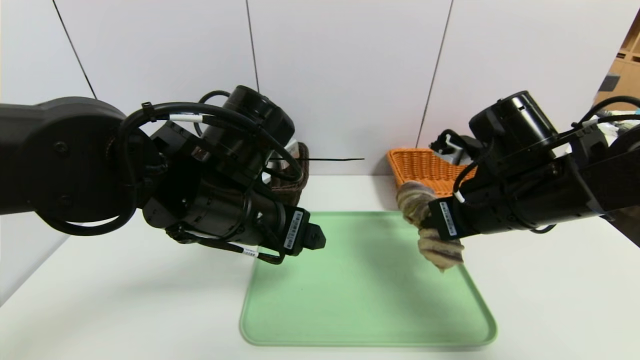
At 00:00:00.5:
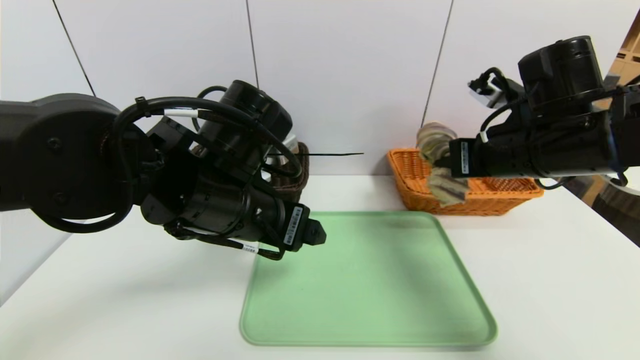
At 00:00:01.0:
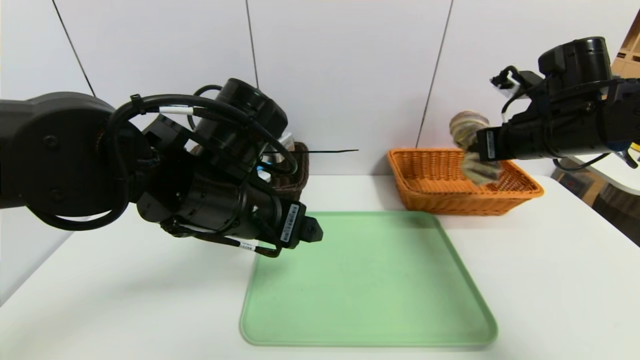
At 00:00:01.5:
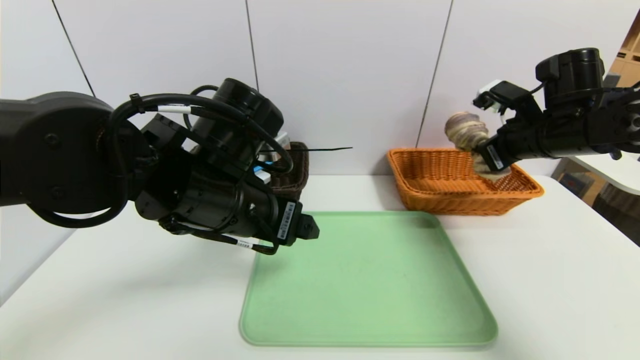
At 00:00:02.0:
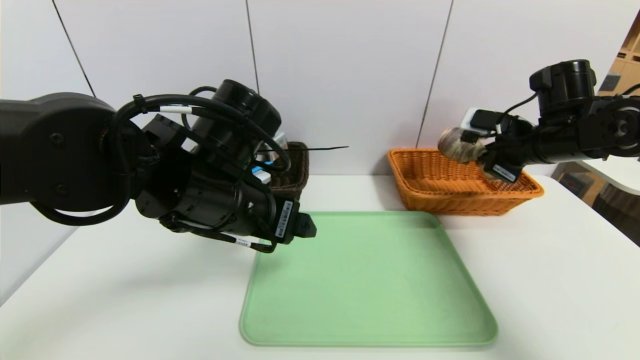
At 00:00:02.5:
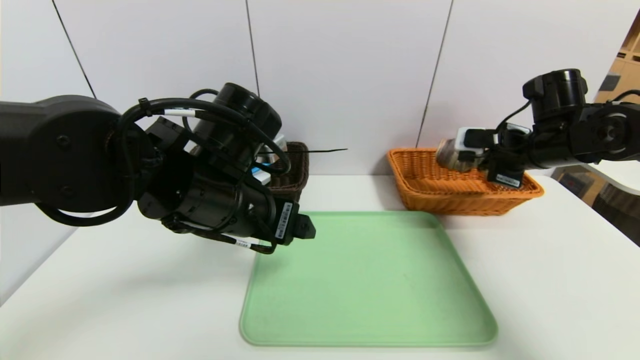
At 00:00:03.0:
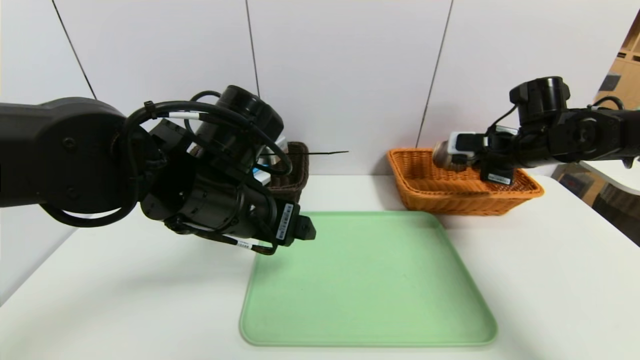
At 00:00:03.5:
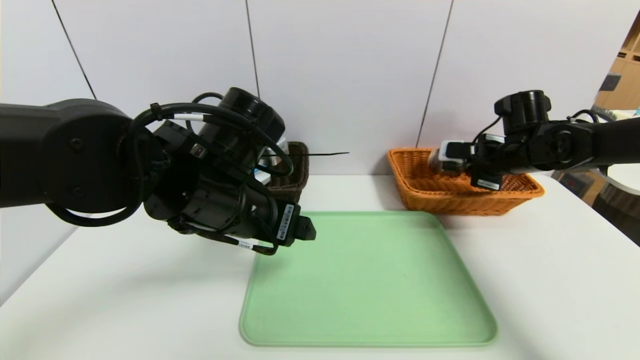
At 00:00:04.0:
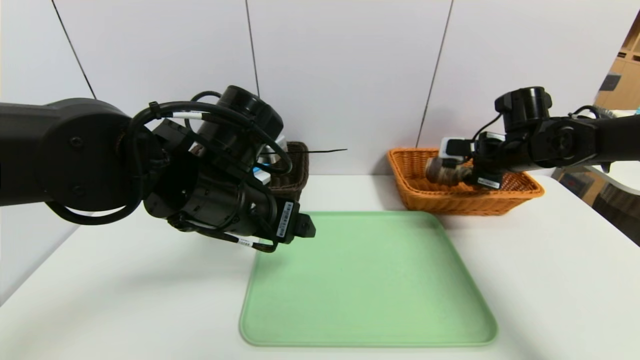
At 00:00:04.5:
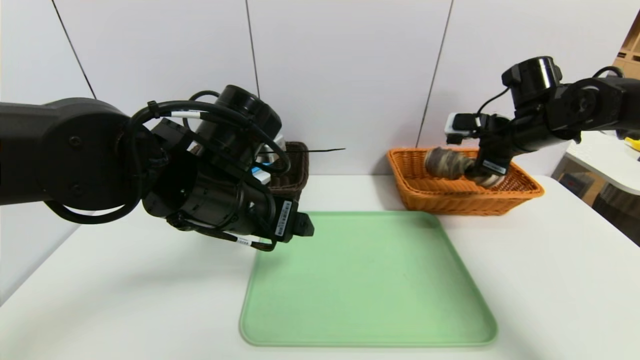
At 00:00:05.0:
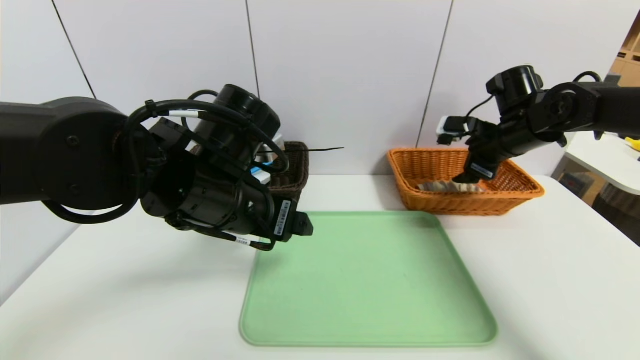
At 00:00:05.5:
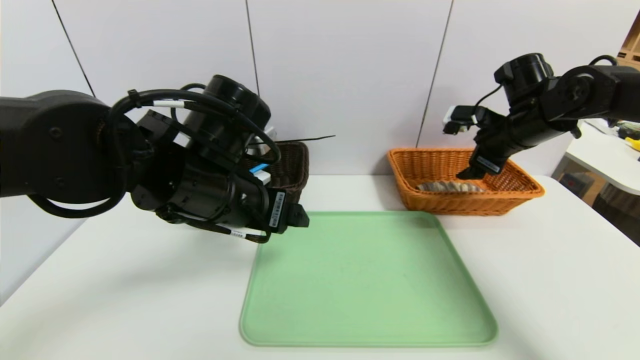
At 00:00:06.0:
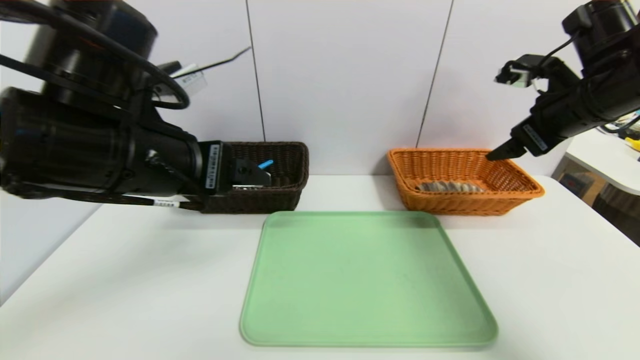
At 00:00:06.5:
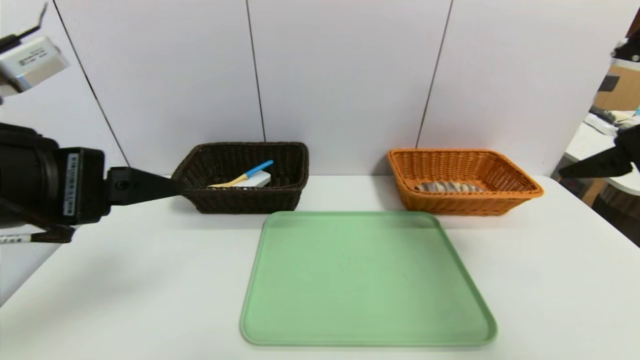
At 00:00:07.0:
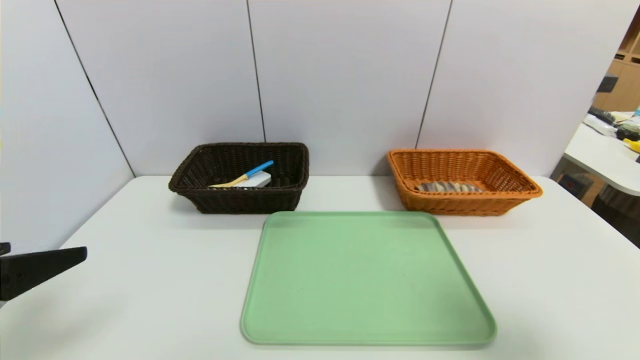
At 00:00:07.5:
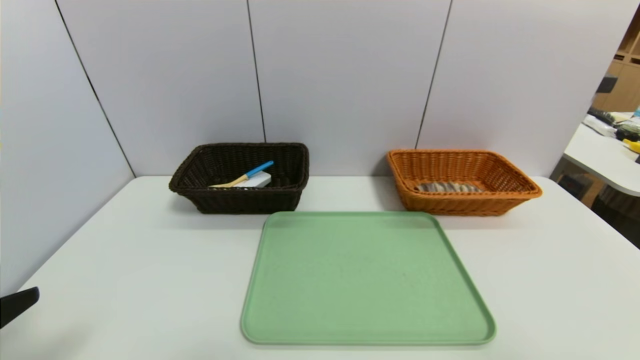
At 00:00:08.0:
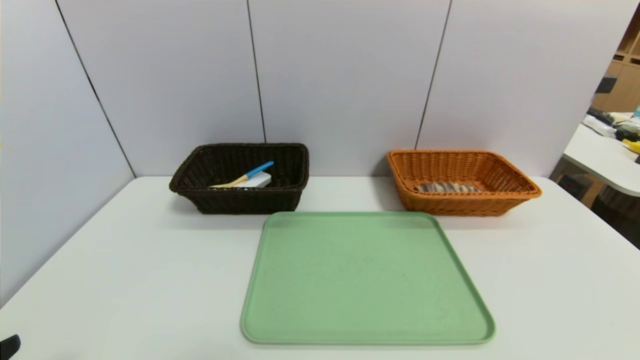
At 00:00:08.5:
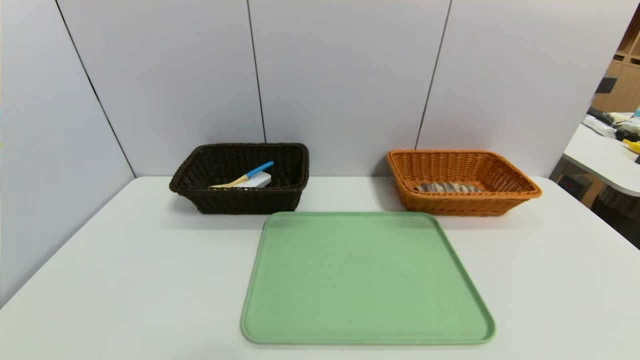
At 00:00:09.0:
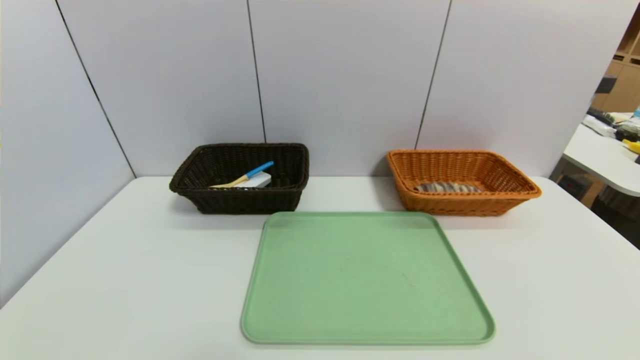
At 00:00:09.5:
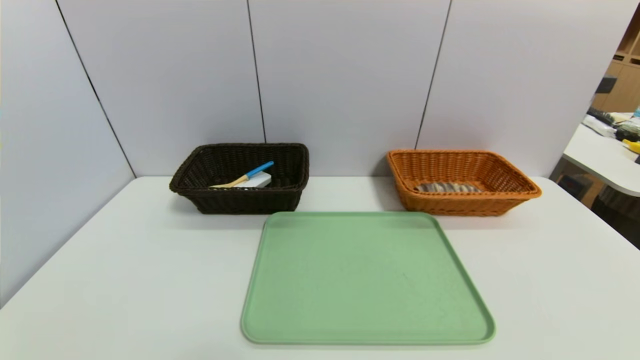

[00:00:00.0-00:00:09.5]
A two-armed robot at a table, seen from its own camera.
Task of the whole recording: place the food in the right basket with the right gripper, and place the non food items in the left basket with the left gripper.
00:00:00.0 to 00:00:02.0: The right gripper moves to the right and forward, some 15 cm.
00:00:02.0 to 00:00:04.0: The right gripper travels forward by about 5 cm, and opens up.
00:00:04.0 to 00:00:05.5: The right gripper goes about 5 cm upward, and opens up.
00:00:05.5 to 00:00:07.5: The right gripper is displaced backward by roughly 40 cm; the left gripper moves backward and to the left, roughly 30 cm.
00:00:07.5 to 00:00:09.5: The left gripper shifts about 15 cm downward and backward.
